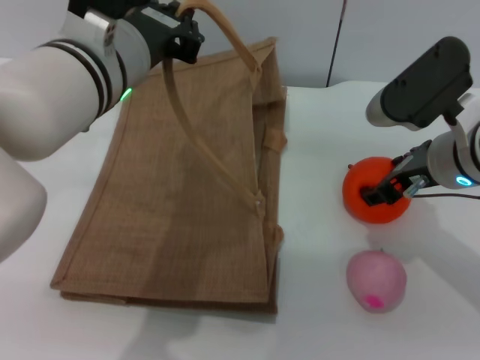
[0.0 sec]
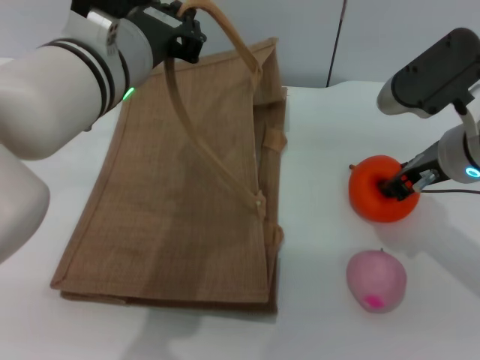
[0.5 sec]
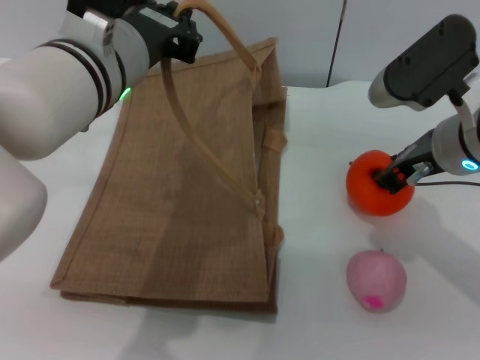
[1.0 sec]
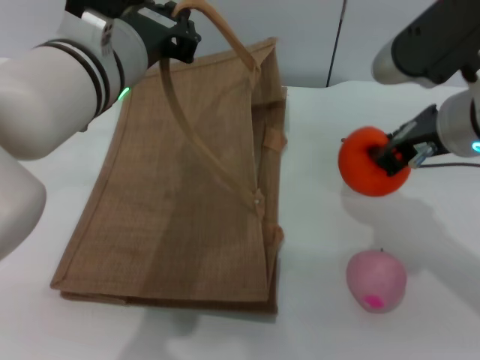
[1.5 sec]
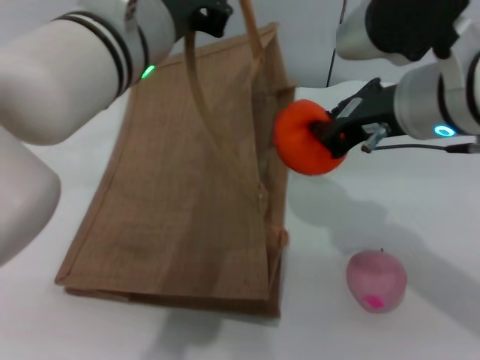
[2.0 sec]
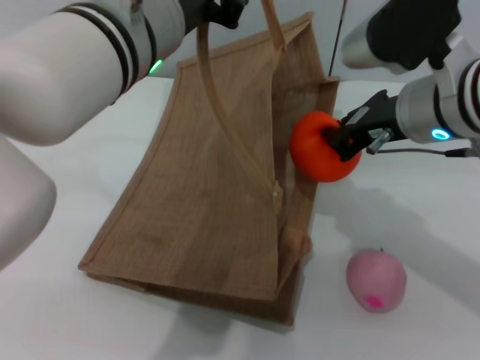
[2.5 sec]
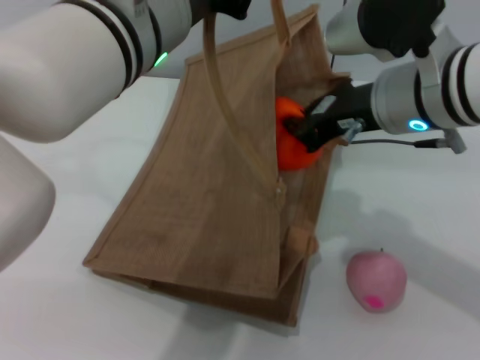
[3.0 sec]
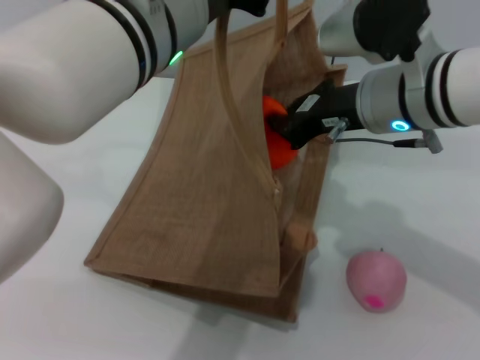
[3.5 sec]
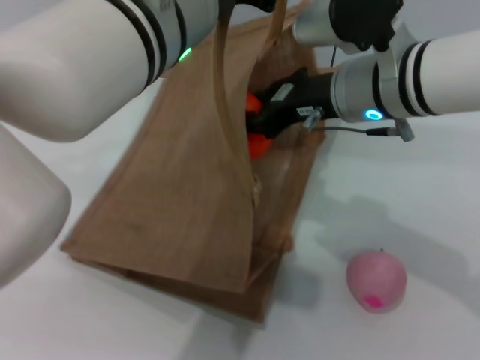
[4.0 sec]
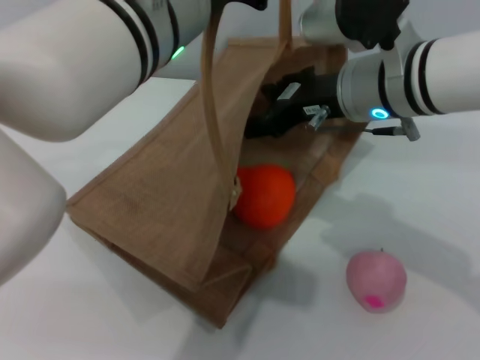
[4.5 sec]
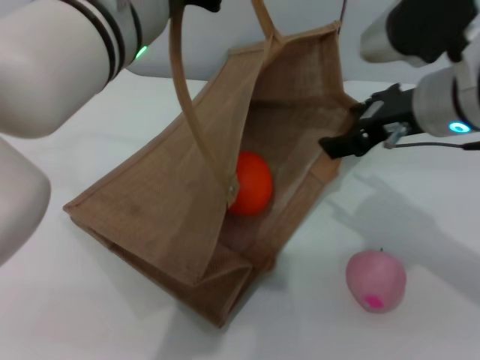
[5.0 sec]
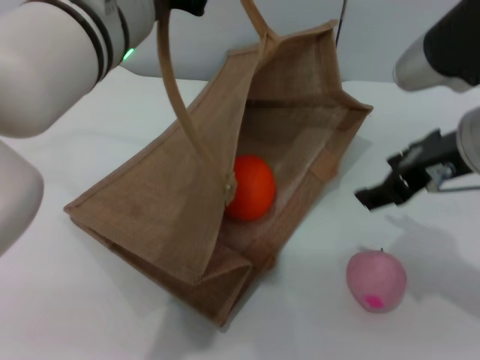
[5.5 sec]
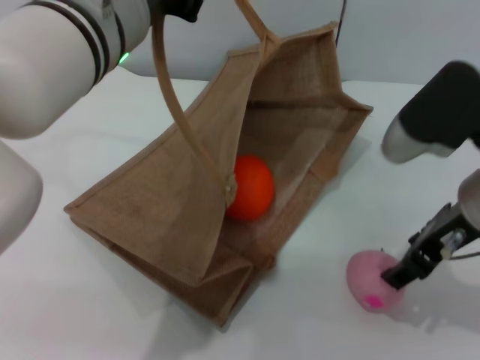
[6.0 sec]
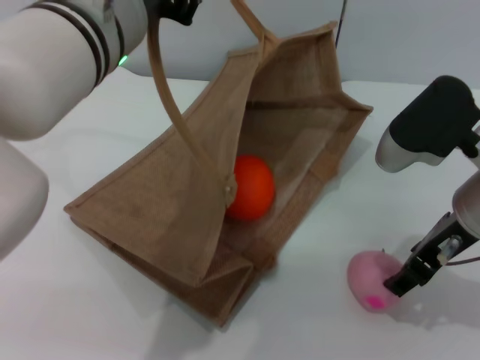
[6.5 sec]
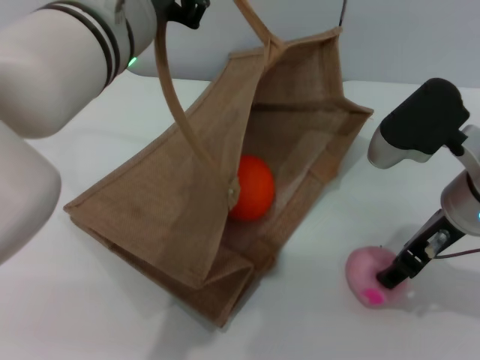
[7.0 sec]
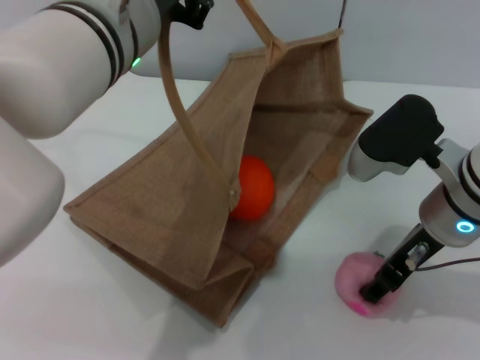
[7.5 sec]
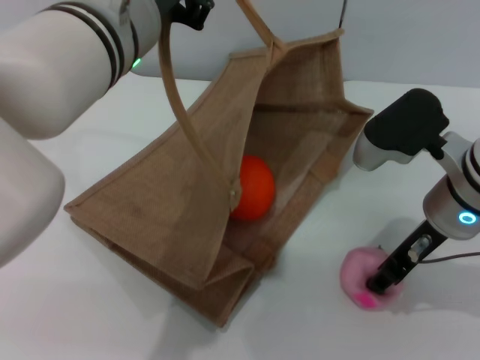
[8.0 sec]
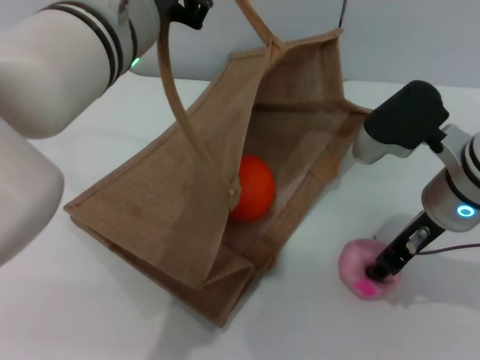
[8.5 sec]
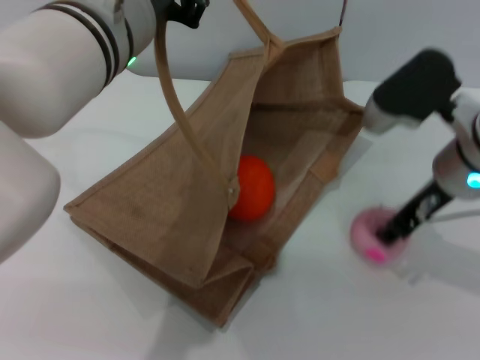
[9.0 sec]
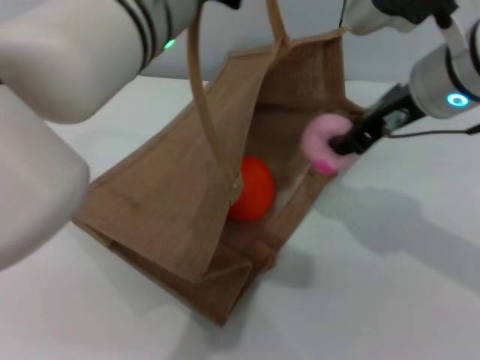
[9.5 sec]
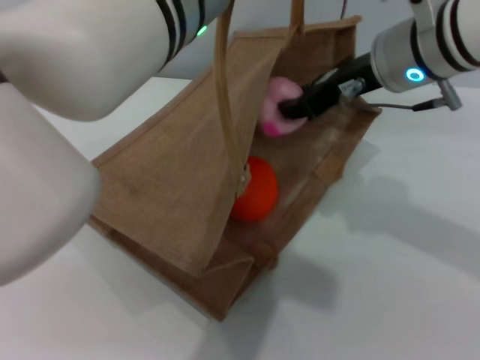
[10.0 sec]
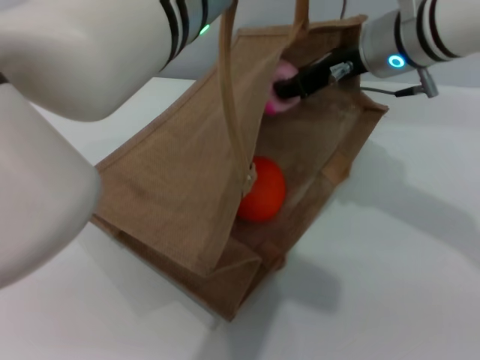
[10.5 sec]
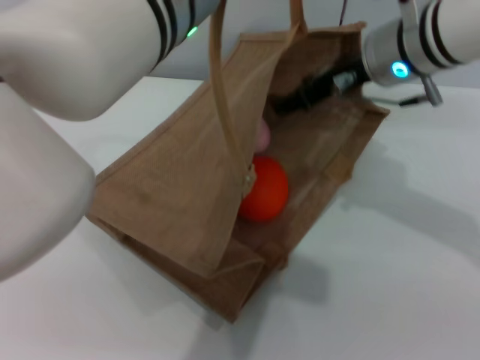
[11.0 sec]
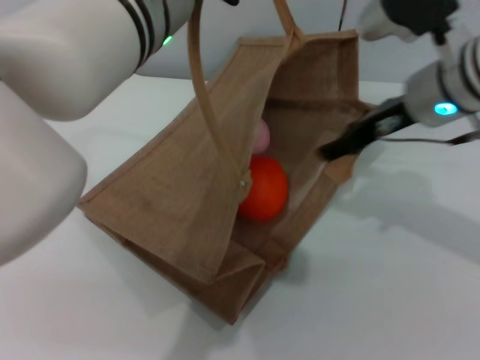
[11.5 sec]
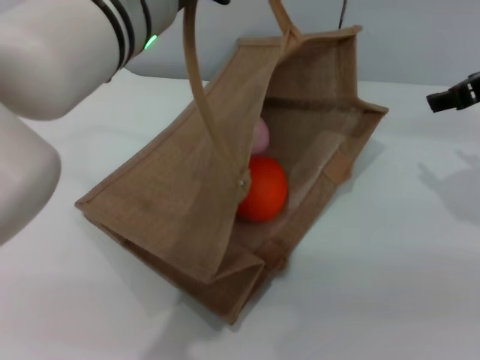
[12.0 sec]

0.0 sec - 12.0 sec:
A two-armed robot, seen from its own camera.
Task of the whole recording: pick up the orange and peach from the table and place it in the brown handbag.
Step, 1.5 sec - 4.5 sec: Place the orange into the woven bag with the right gripper.
Step, 5.0 sec - 8.5 sec: Pick up the peach with the right gripper.
Step, 9.0 sec - 11.0 sec: Place the peach into the woven bag with the right gripper.
0.0 sec - 2.0 sec: The right gripper is displaced upward by approximately 10 cm, and closes.
2.0 sec - 4.0 sec: The right gripper moves some 5 cm.
4.0 sec - 6.0 sec: The right gripper travels to the right and backward by approximately 10 cm, and opens its fingers.
6.0 sec - 8.0 sec: The right gripper ends up about 5 cm from where it was.
8.0 sec - 10.0 sec: The left gripper ends up about 5 cm from where it was. The right gripper goes approximately 10 cm upward and forward, and closes its fingers.
10.0 sec - 12.0 sec: The right gripper travels to the right by about 10 cm, and opens.

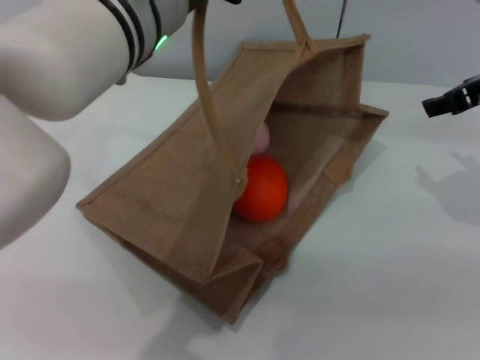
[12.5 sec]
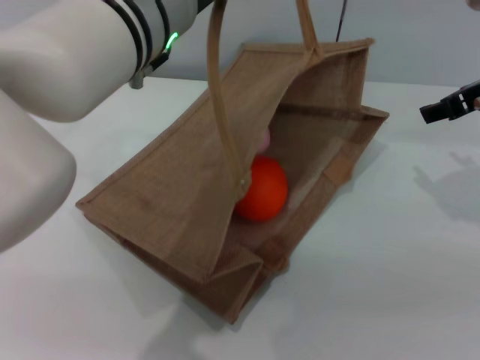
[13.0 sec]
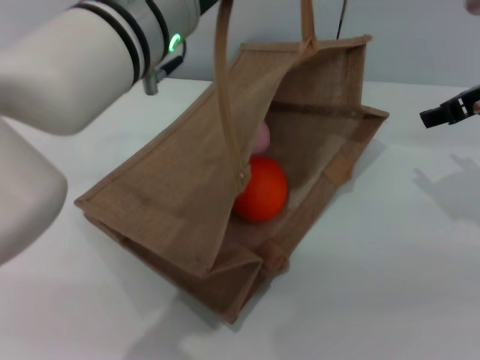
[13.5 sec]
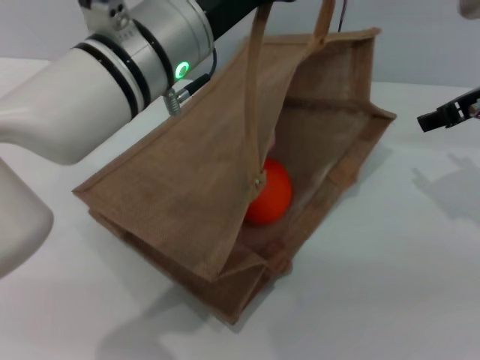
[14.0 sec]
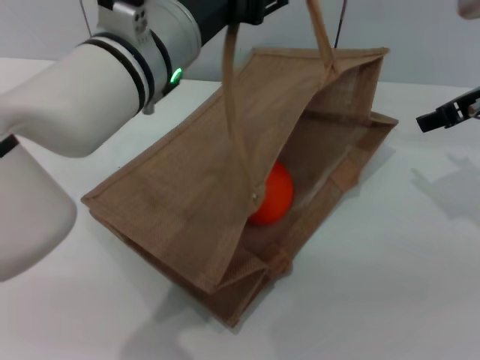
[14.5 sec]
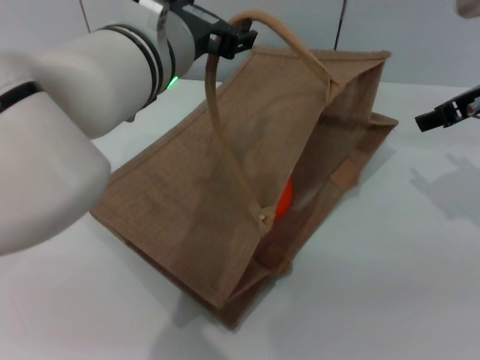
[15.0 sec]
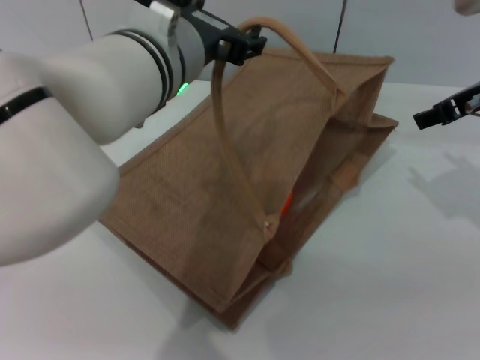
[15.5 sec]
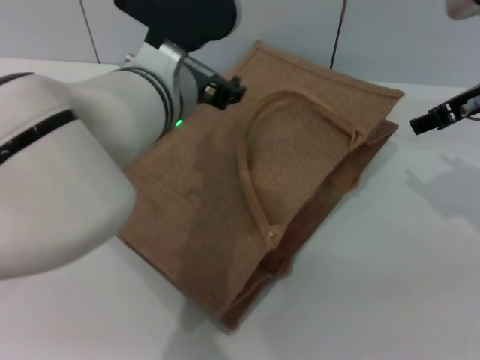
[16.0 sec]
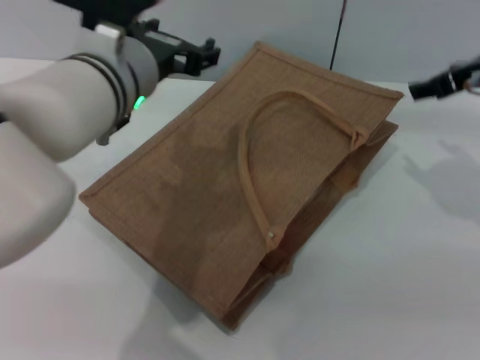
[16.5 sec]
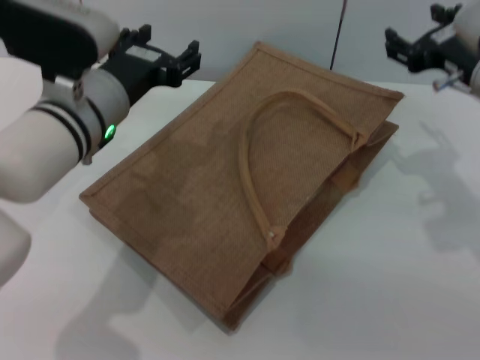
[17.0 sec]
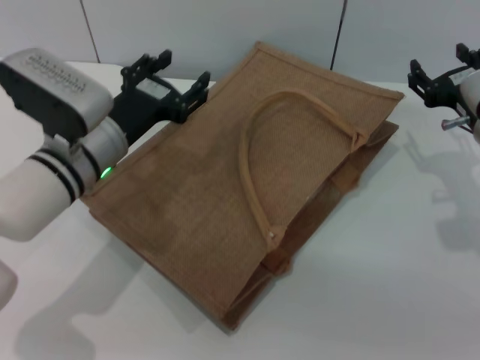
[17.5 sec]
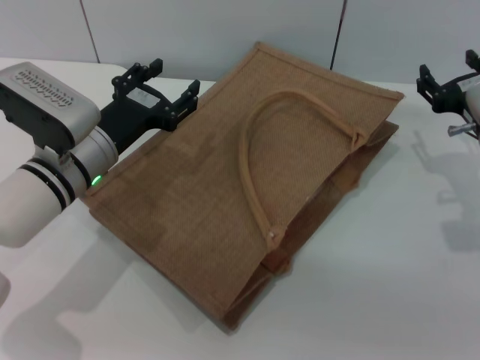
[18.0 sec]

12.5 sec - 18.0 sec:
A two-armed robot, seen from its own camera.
Task of the whole recording: pick up the orange and peach from the table and place it in the brown handbag.
Step, 12.5 sec - 16.5 sec: Lower the woven bag with the left gripper to close it.
12.5 sec - 14.5 sec: The left gripper opens up.
16.0 sec - 18.0 sec: The left gripper shifts some 15 cm downward and to the left. The right gripper travels downward by approximately 10 cm.
